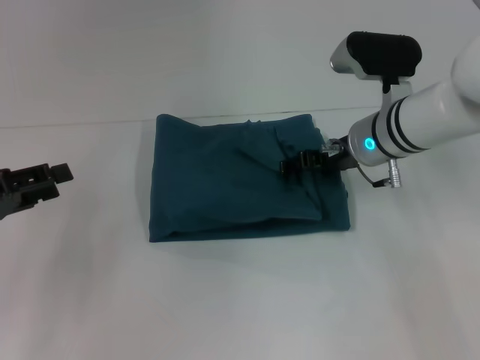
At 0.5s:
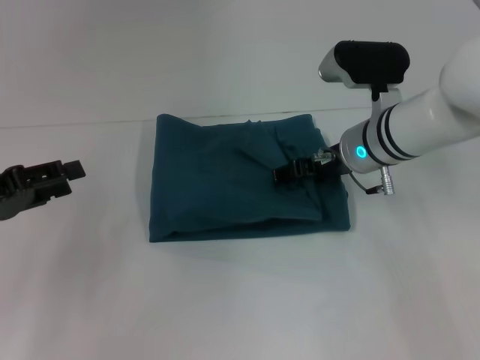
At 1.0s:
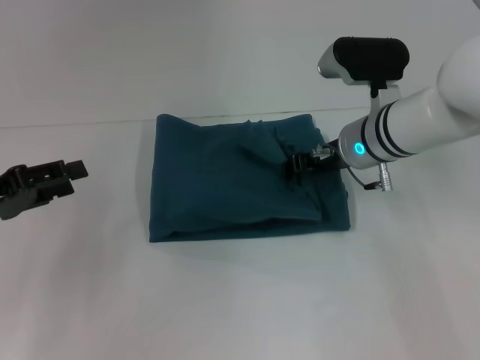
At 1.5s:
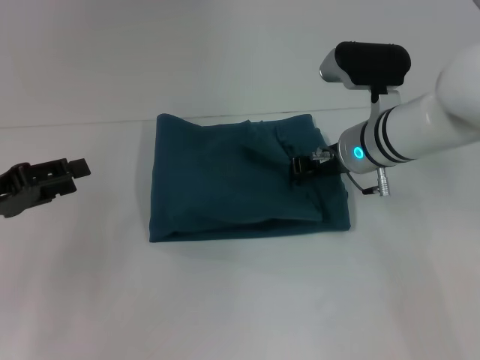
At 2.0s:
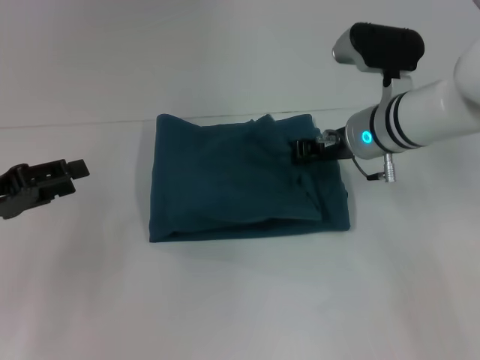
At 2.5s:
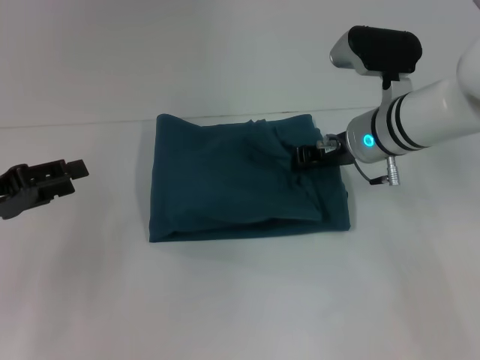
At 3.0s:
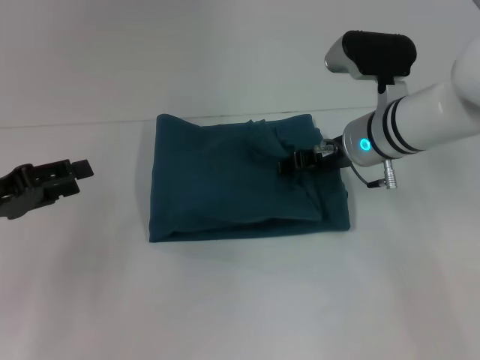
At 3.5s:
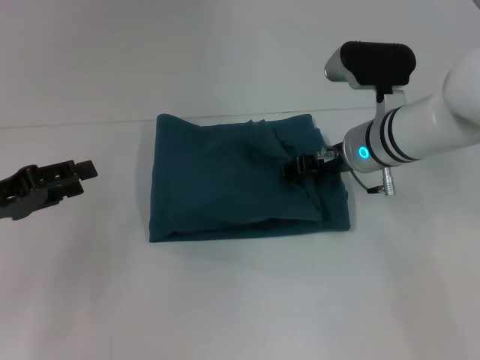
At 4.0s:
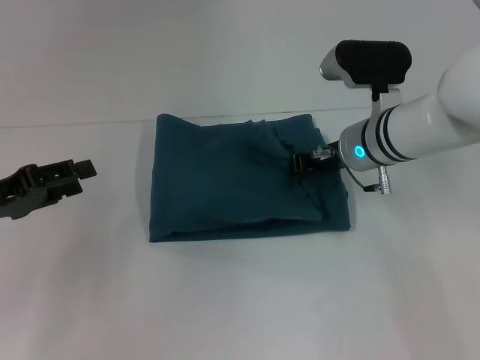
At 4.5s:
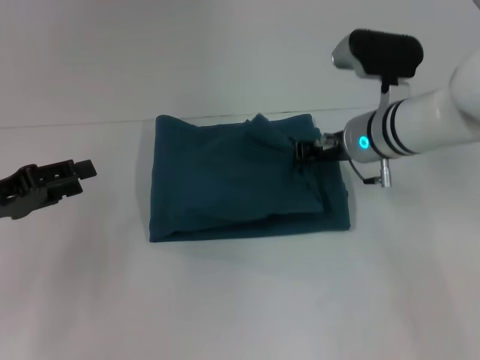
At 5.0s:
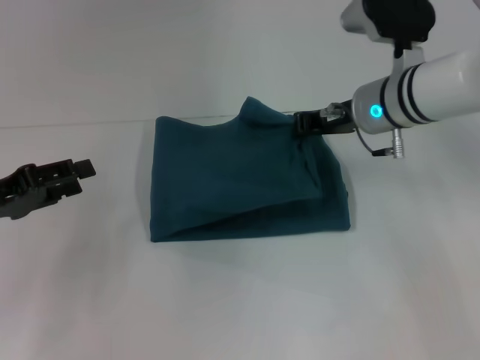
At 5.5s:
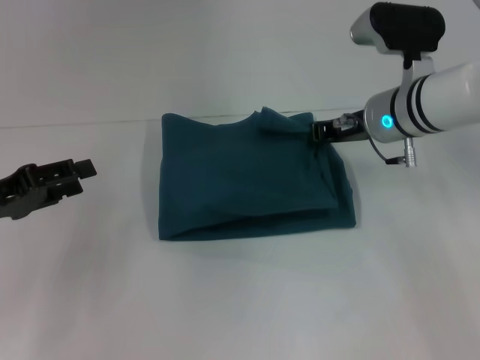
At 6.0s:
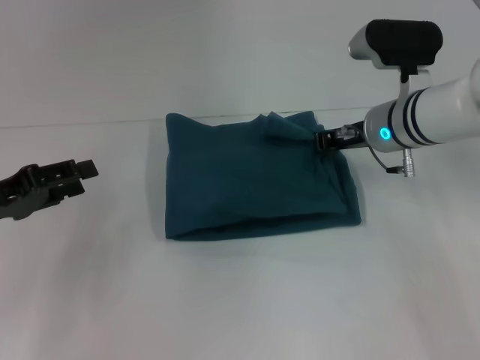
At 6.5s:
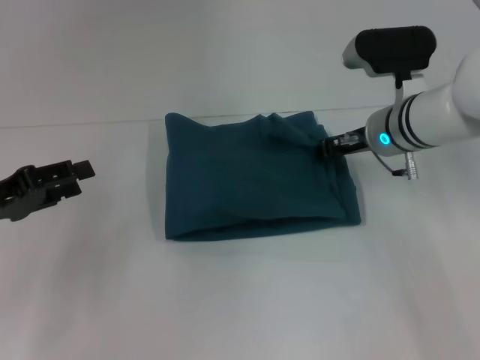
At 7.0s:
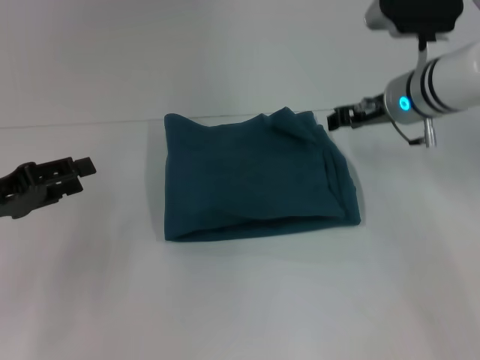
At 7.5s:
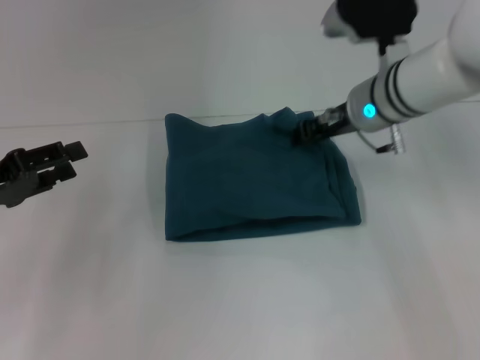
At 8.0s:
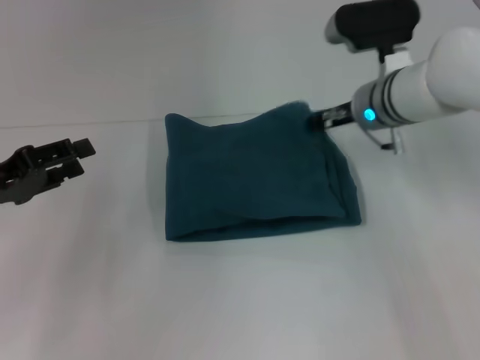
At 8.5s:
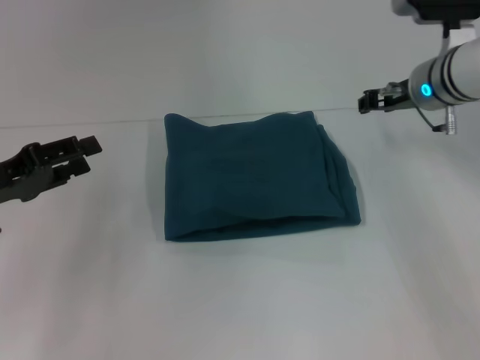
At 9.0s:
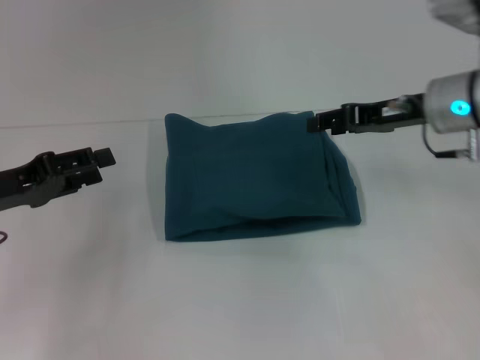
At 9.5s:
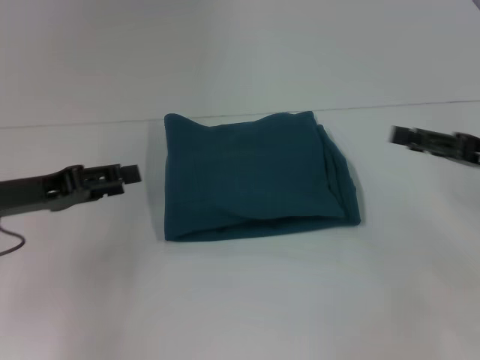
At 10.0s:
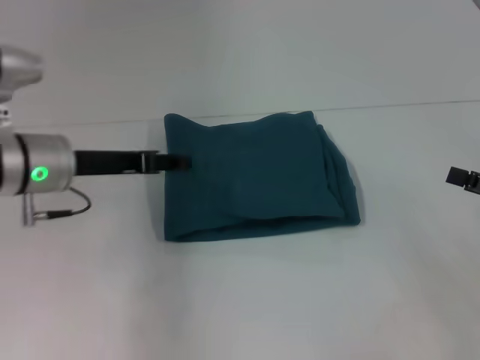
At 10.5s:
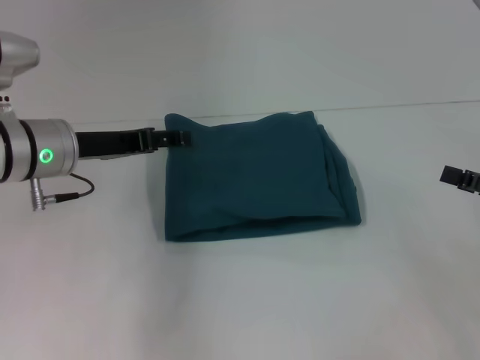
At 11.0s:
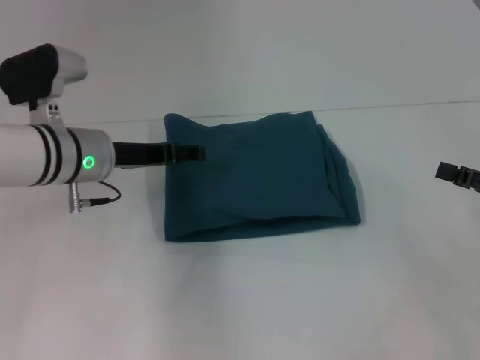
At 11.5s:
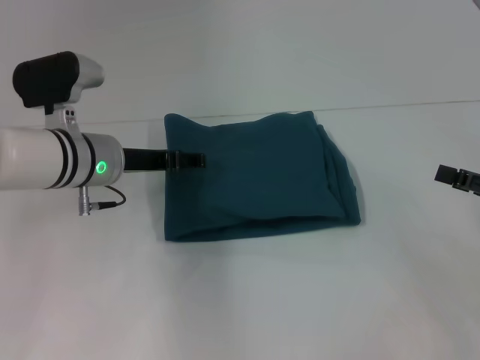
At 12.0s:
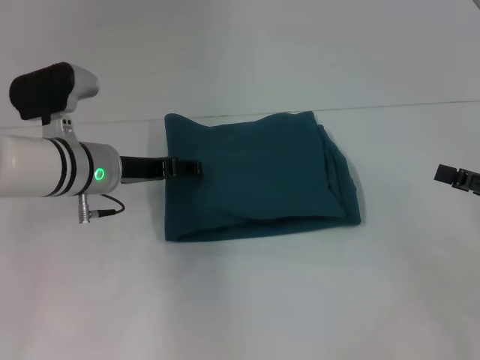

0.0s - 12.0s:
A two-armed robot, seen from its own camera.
0.0s - 2.0s: The right gripper closes its fingers.
2.0s - 6.0s: The grippers move only a little.
6.0s - 8.0s: The right gripper opens its fingers.
8.0s - 10.0s: The right gripper heads to the right and backward, covering about 30 cm, and opens, while the left gripper travels to the right and forward by about 10 cm.
10.0s - 12.0s: The left gripper changes place by approximately 5 cm.

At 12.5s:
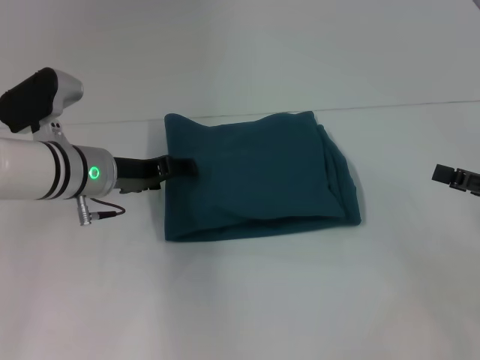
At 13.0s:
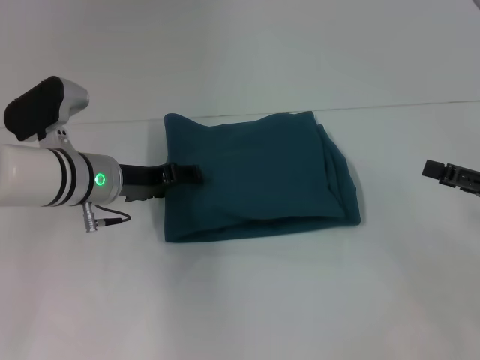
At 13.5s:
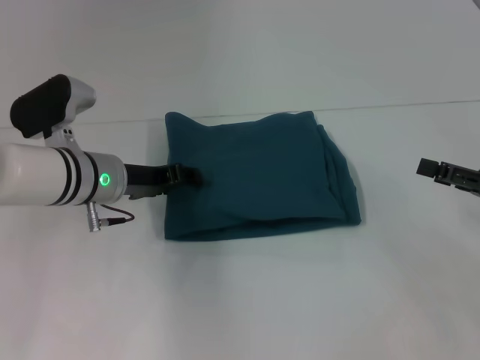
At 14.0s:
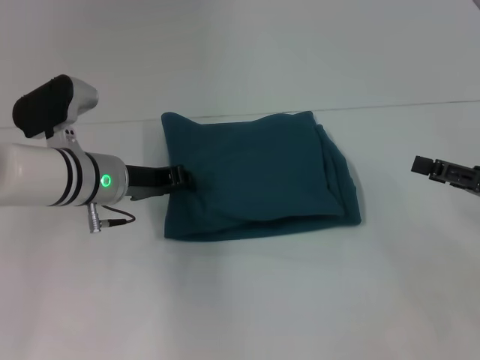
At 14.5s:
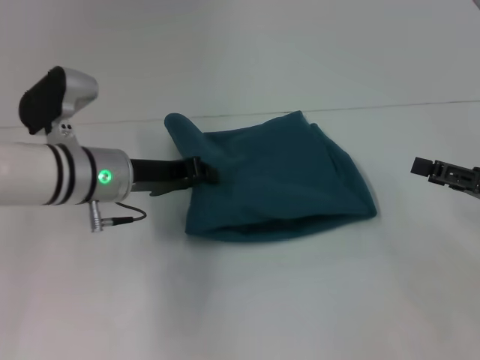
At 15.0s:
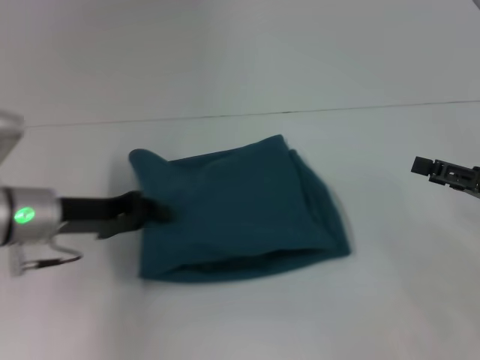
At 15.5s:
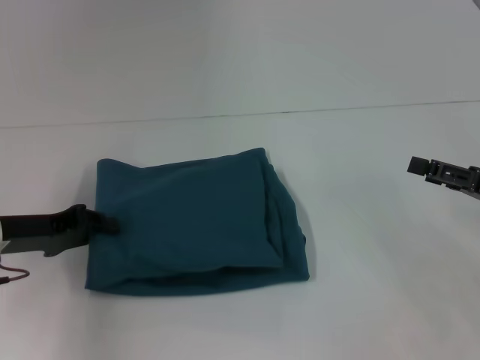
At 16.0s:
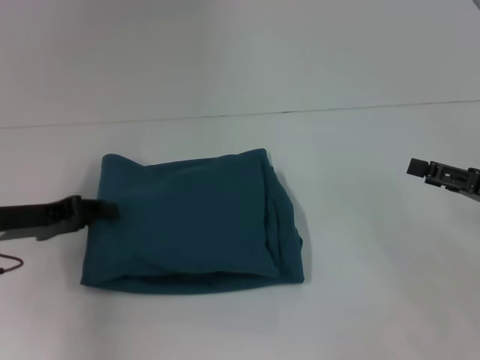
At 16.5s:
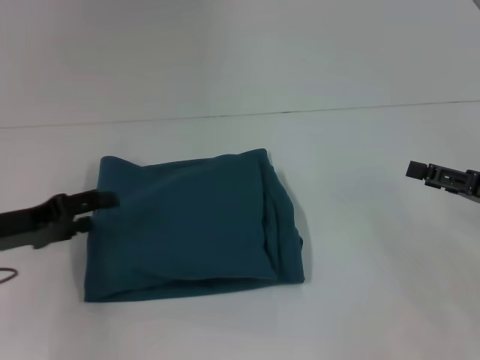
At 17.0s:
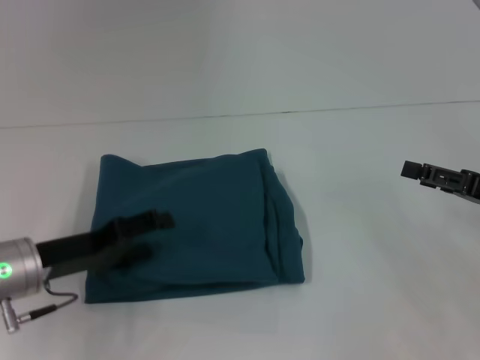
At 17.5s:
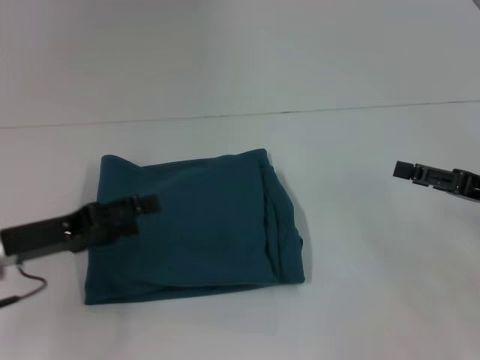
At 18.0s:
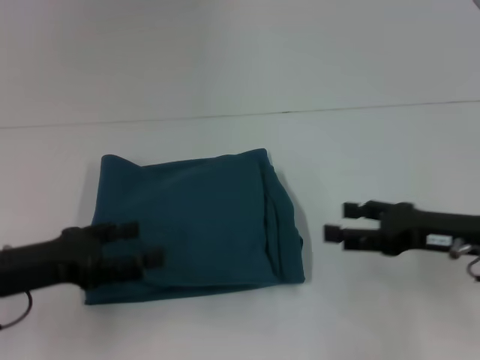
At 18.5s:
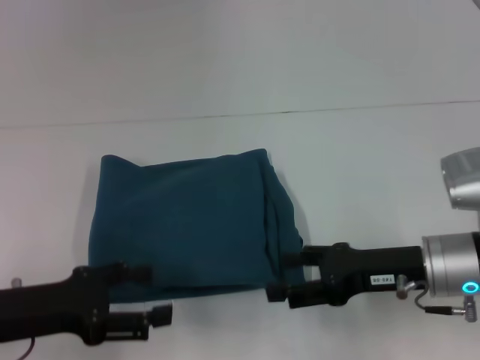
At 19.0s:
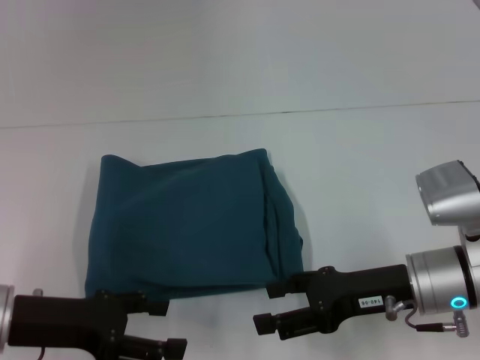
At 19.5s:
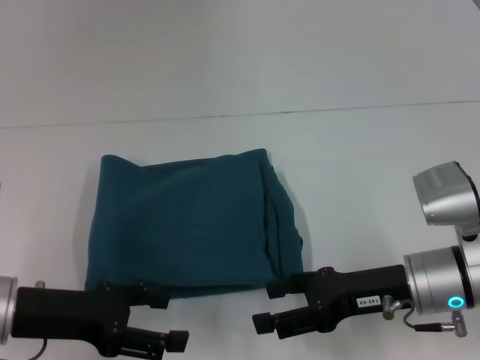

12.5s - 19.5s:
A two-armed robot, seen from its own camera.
12.5s - 14.5s: The left gripper closes up.
14.5s - 16.0s: The left gripper moves to the left, approximately 15 cm.
16.0s - 17.5s: The left gripper opens up.
17.5s - 19.5s: The right gripper goes some 15 cm to the left.
